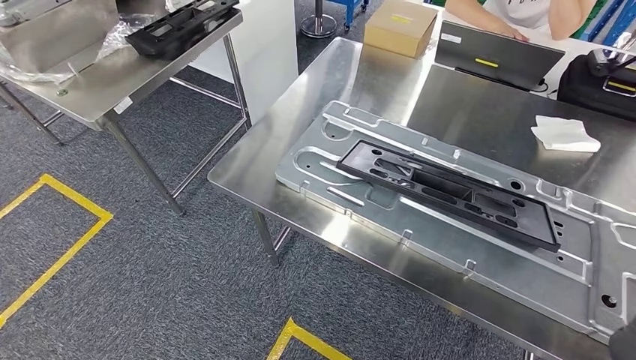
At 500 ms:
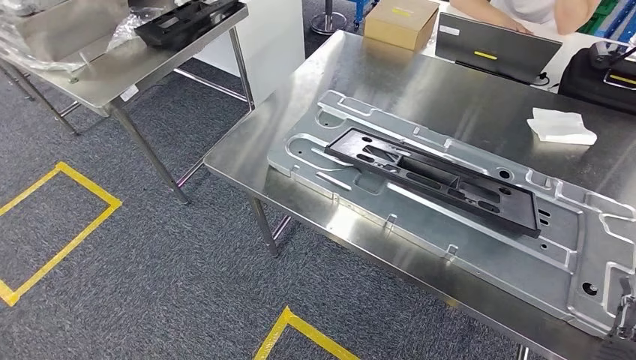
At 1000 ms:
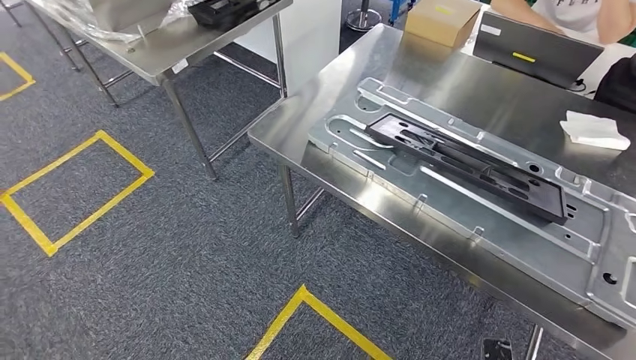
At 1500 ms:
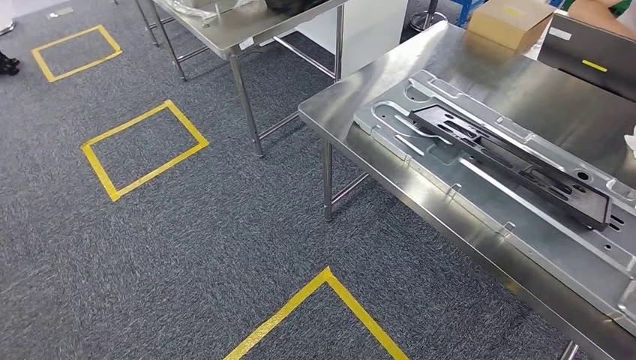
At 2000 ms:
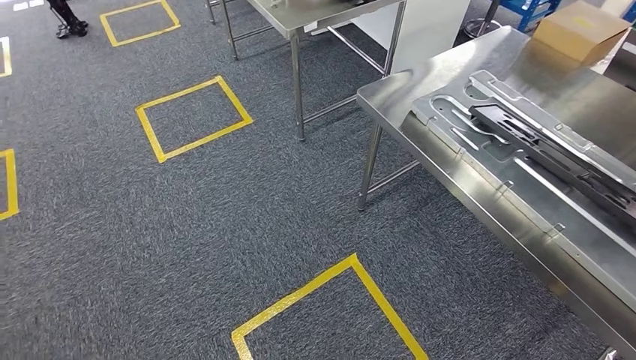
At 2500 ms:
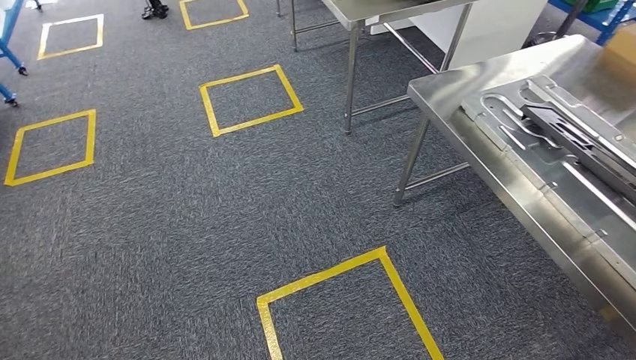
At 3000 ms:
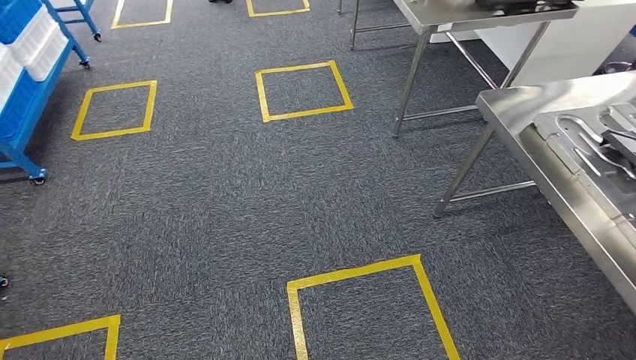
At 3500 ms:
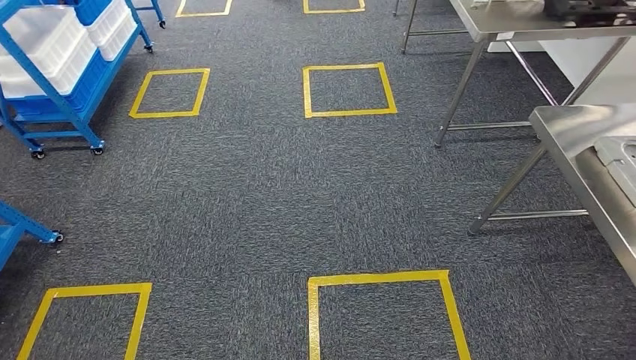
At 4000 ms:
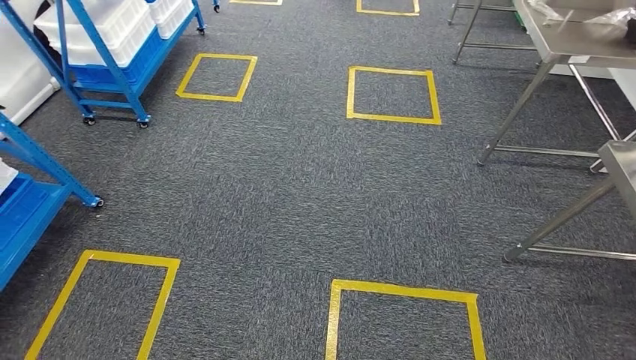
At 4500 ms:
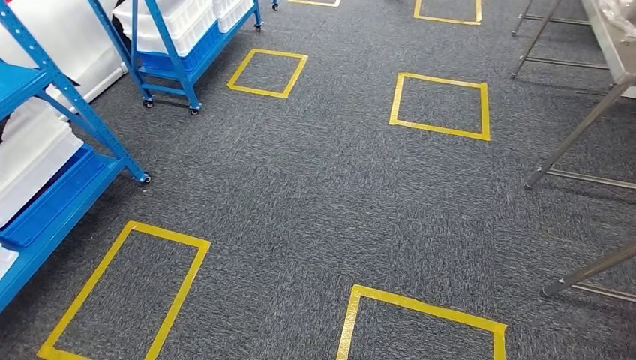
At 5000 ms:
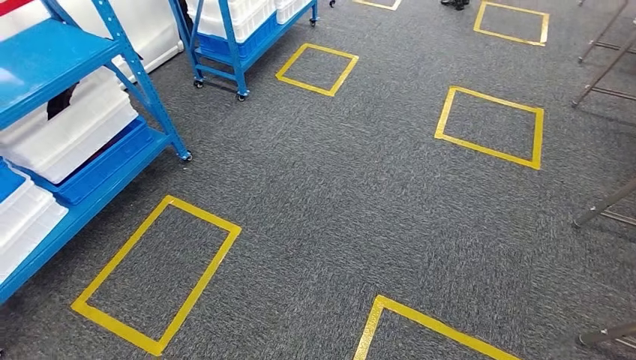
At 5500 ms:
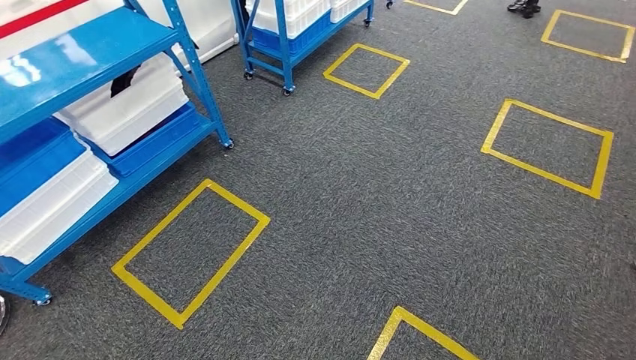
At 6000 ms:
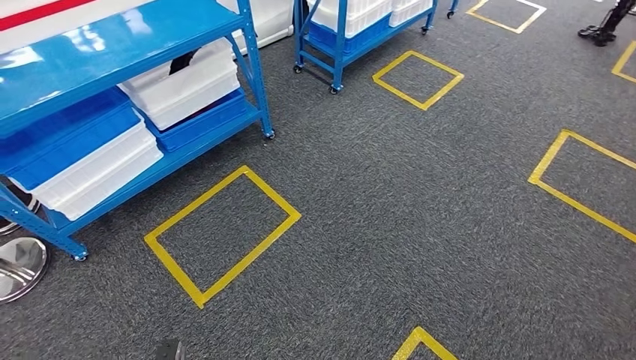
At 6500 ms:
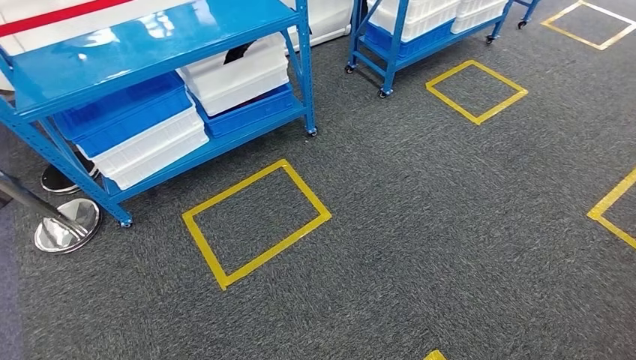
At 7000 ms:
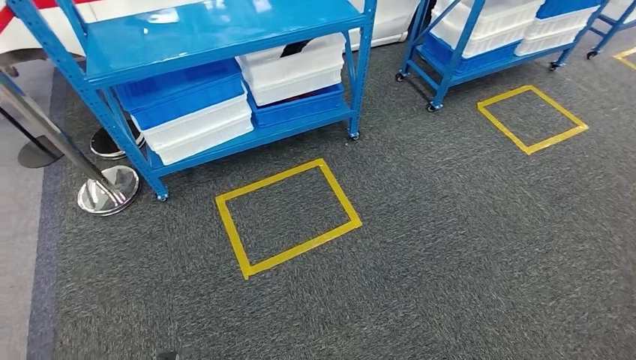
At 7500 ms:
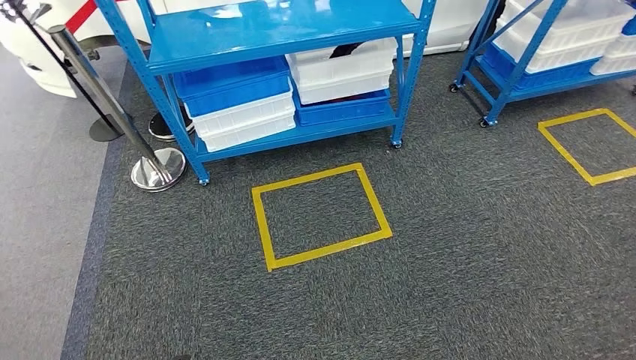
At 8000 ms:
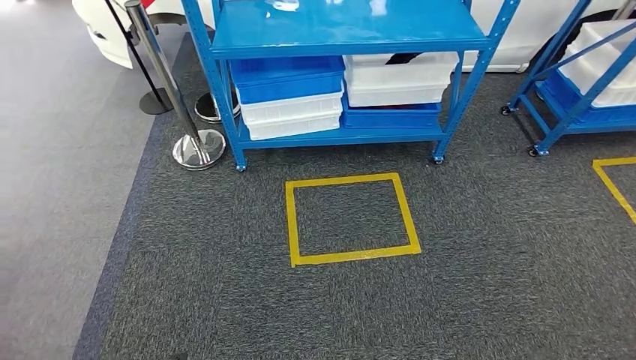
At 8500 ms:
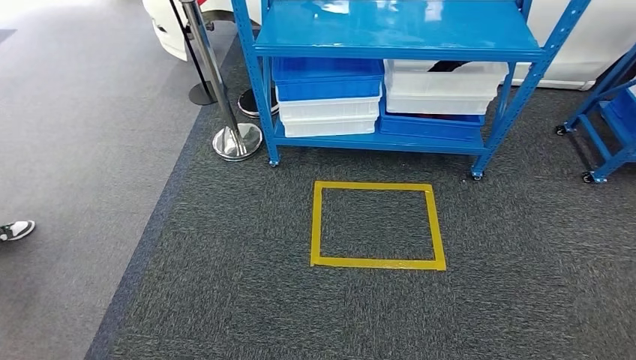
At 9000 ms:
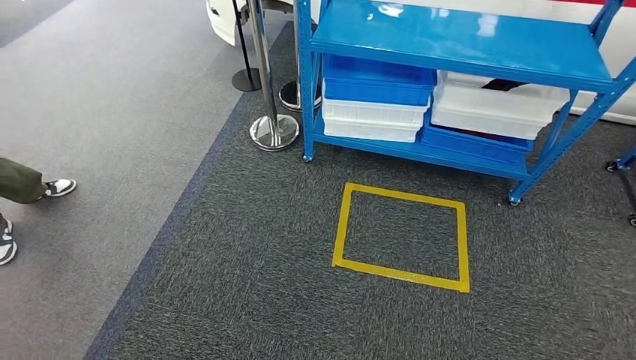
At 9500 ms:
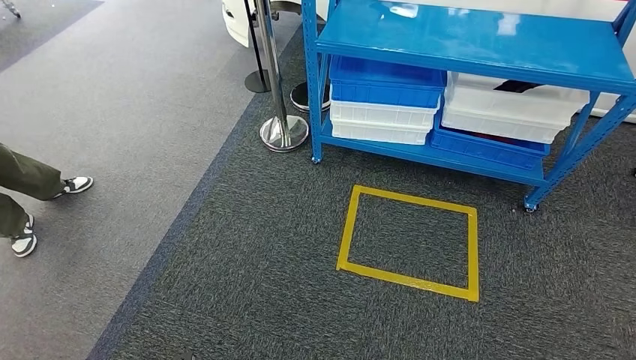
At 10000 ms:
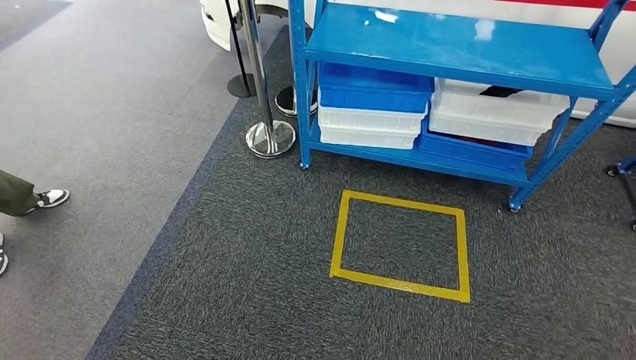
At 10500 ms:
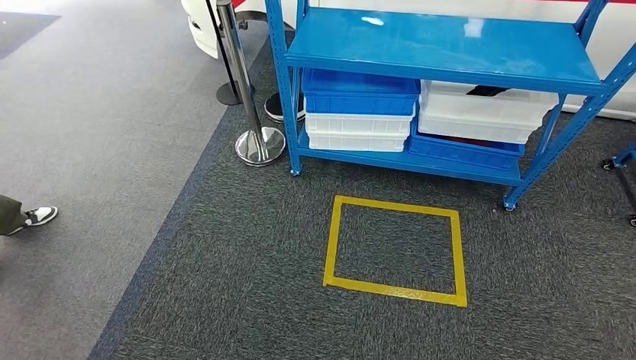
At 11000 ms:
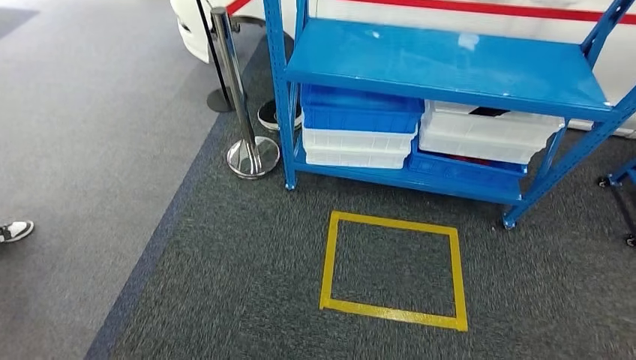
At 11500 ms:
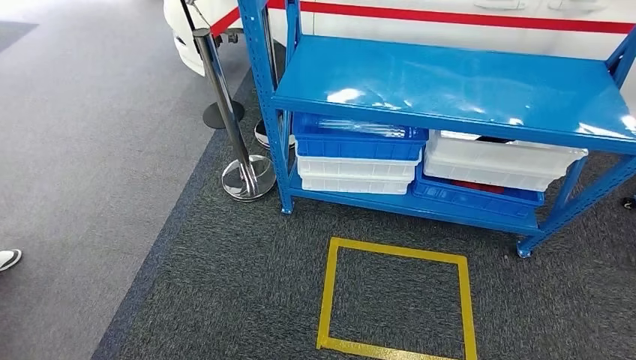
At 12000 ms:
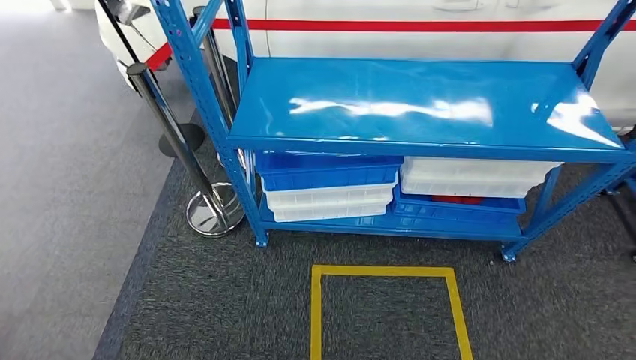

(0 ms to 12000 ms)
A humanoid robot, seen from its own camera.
Step, 1500 ms - 12000 ms: Move to the initial position of the shelf.
